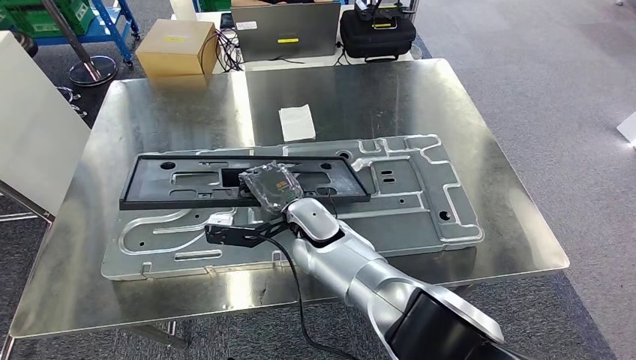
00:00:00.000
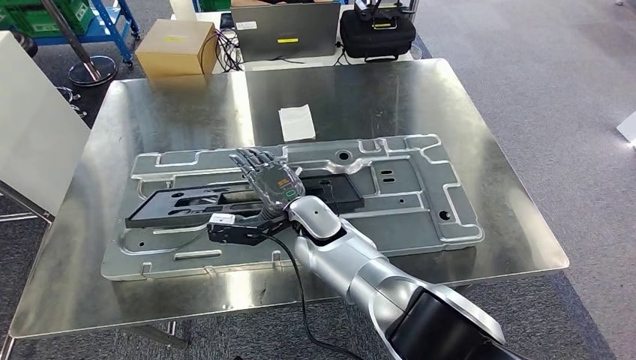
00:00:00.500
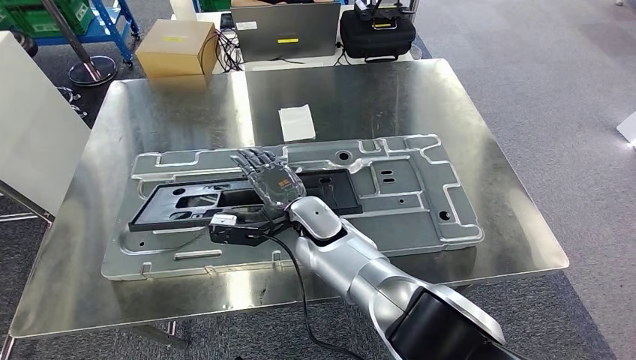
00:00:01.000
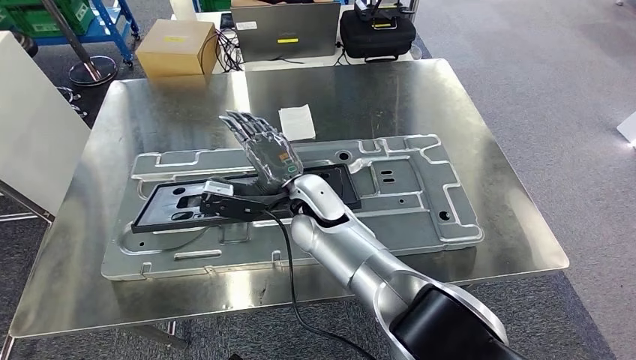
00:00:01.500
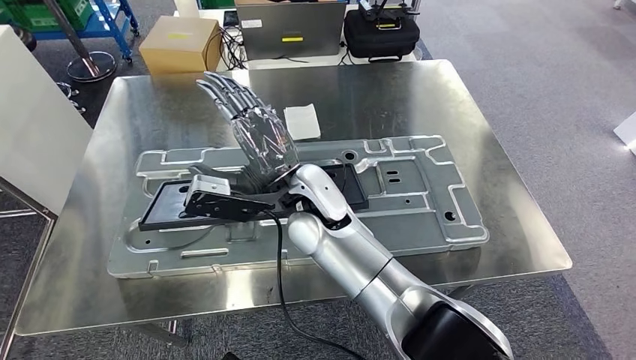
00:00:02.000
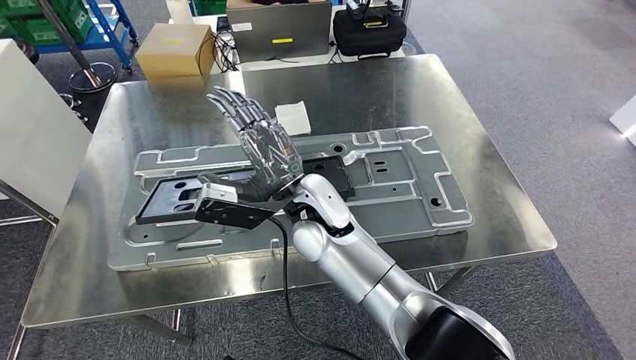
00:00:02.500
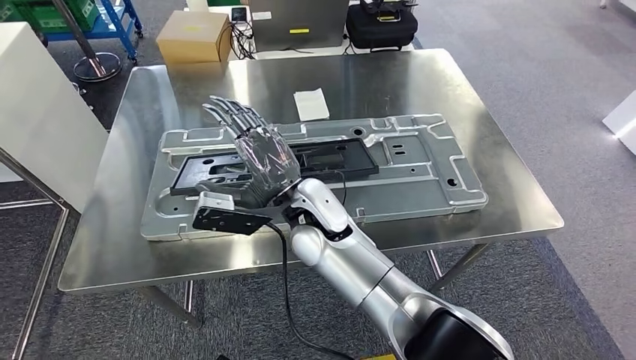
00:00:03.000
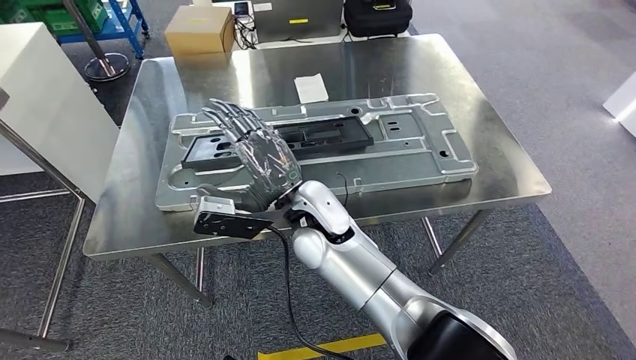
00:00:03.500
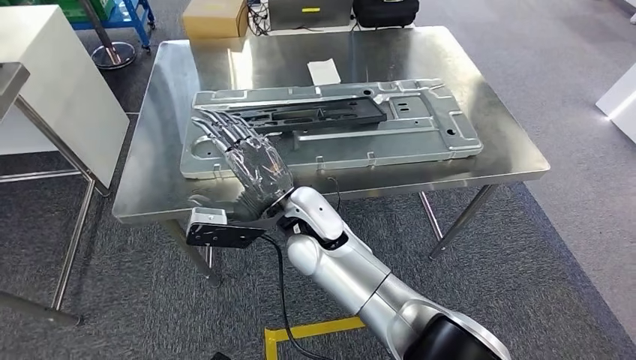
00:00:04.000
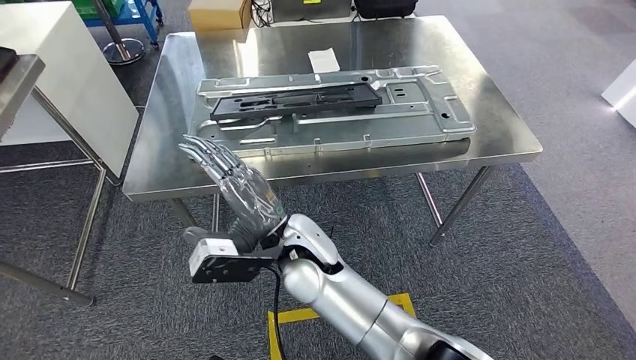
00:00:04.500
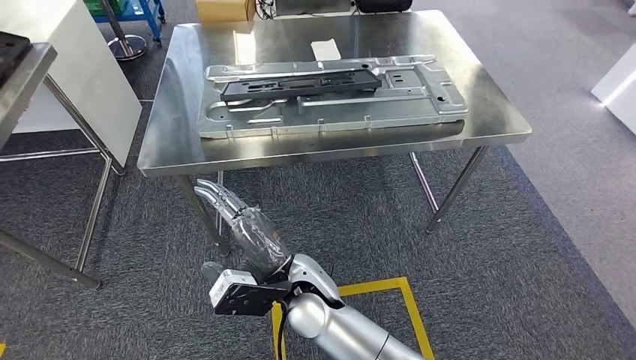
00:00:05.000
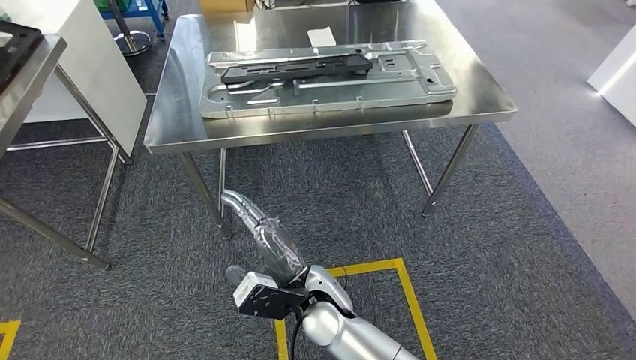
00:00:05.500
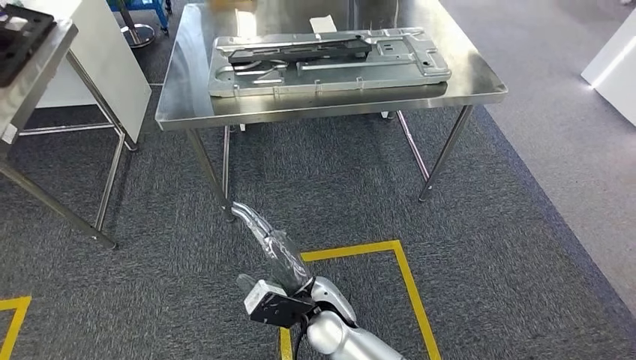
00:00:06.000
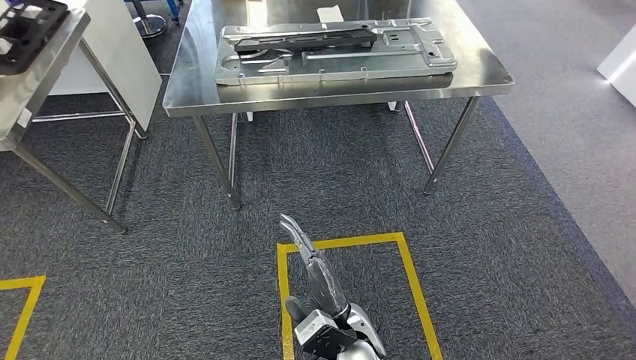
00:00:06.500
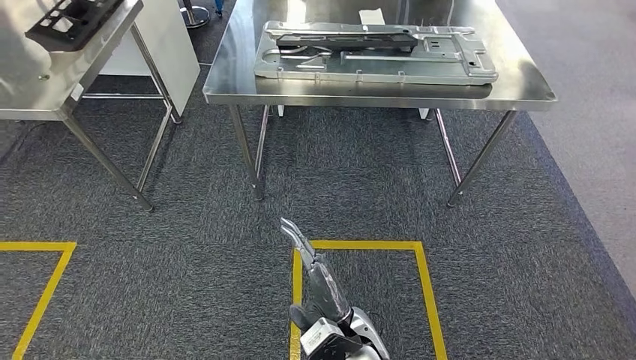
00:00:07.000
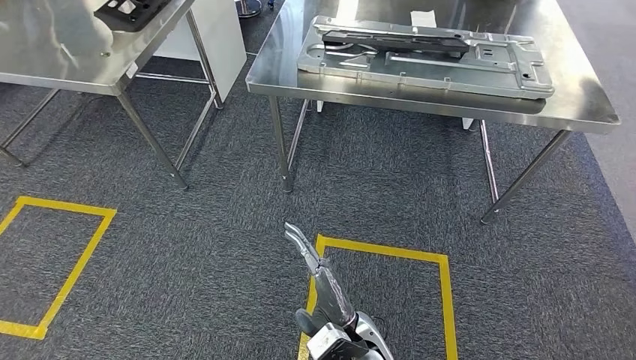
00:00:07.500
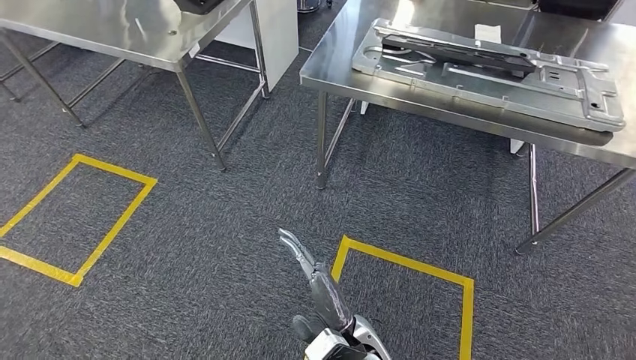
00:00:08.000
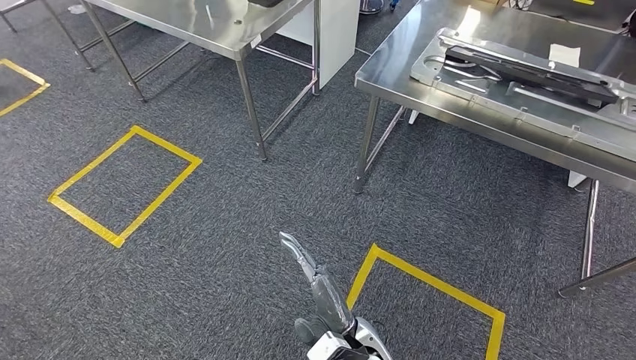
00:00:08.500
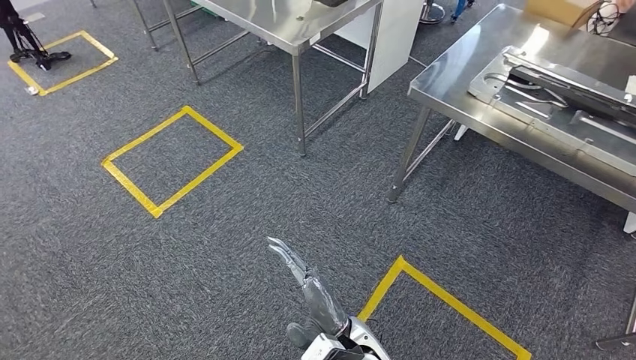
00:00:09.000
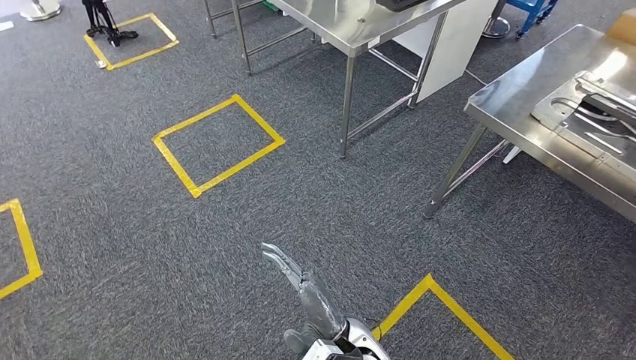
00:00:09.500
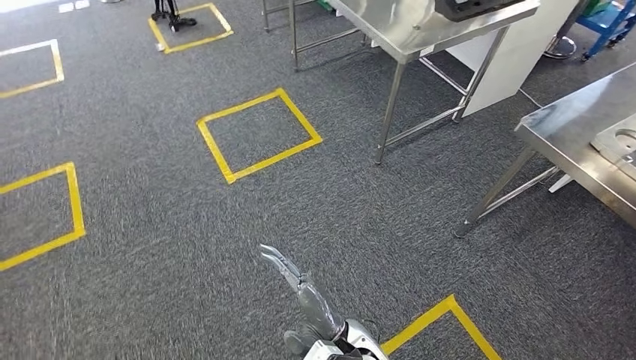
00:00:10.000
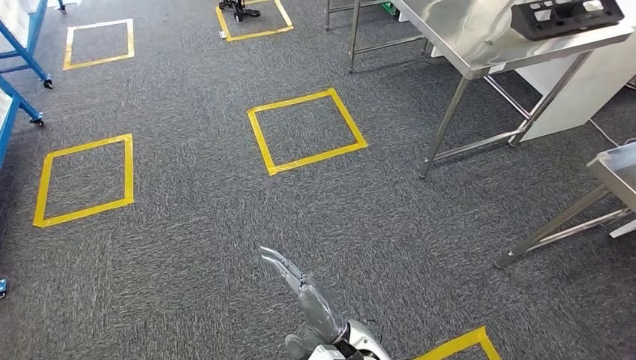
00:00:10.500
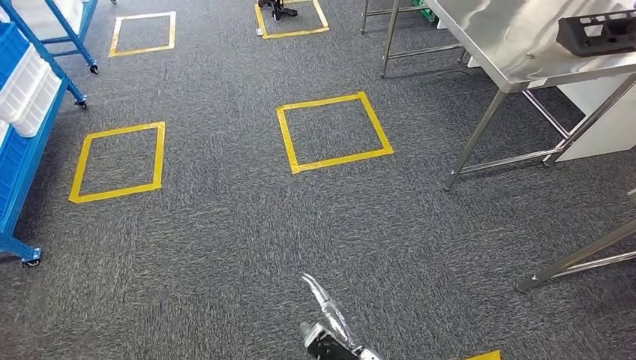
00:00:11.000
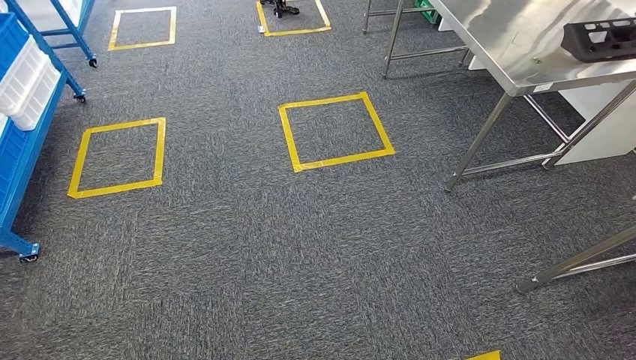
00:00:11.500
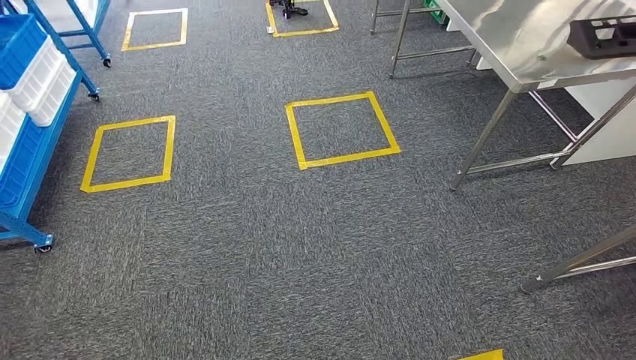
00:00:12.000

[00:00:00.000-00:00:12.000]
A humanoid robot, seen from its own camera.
Step, 00:00:00.000 to 00:00:06.500: Insert the large material into the corresponding slot on the workbench.

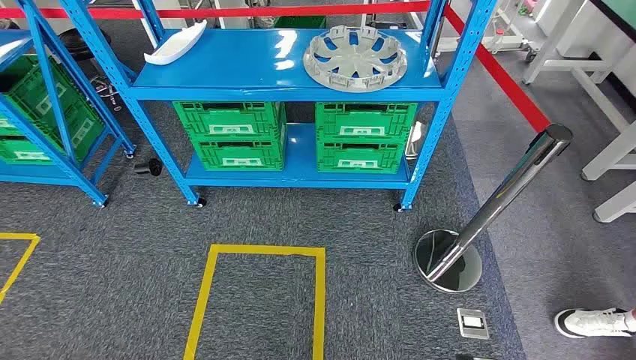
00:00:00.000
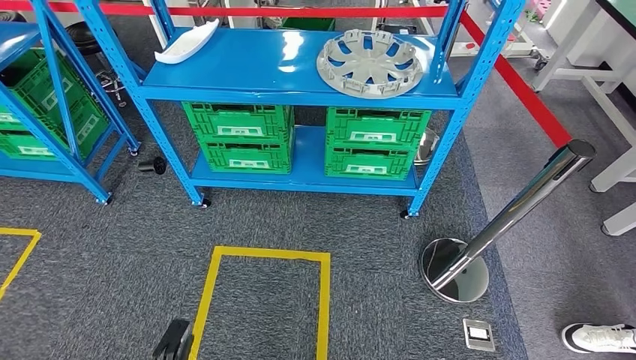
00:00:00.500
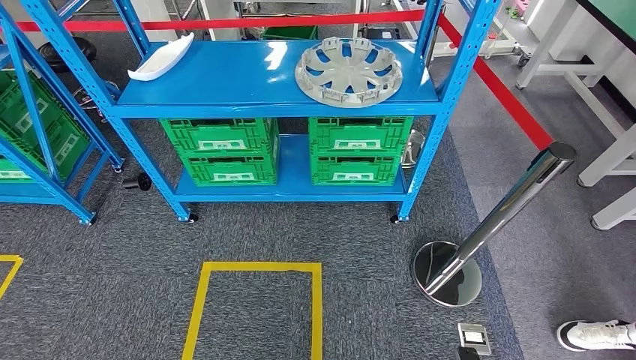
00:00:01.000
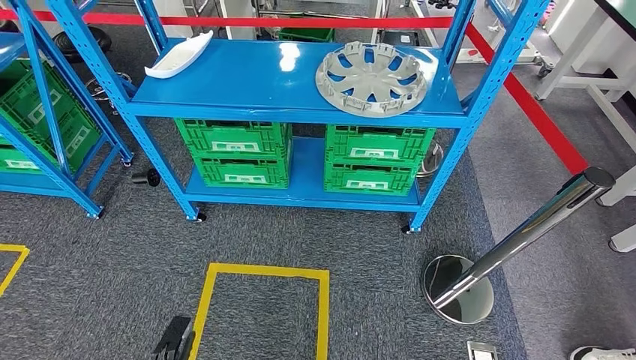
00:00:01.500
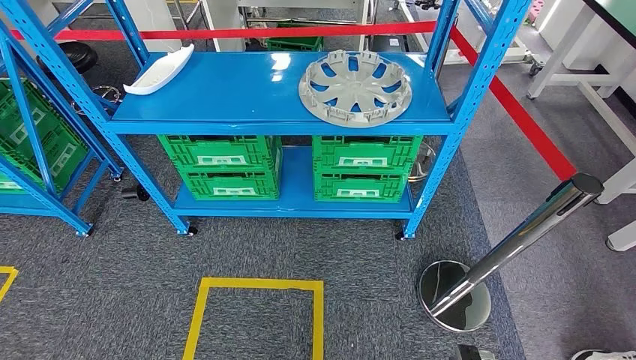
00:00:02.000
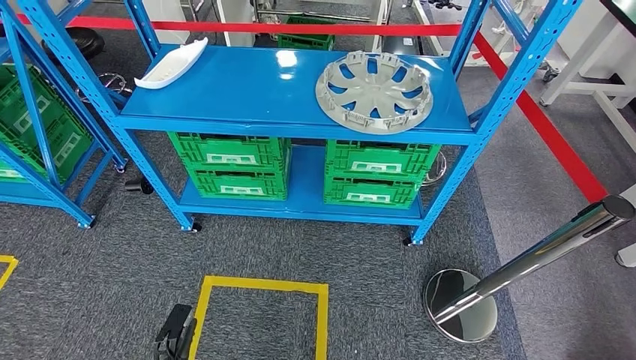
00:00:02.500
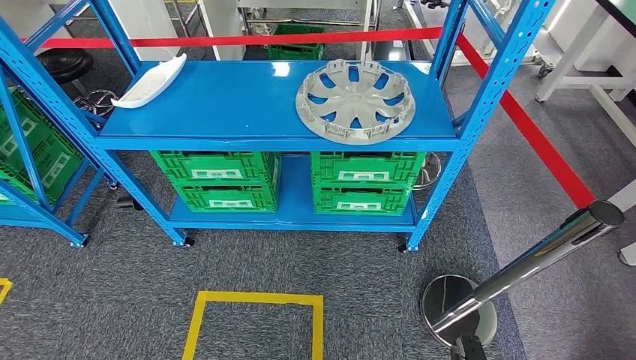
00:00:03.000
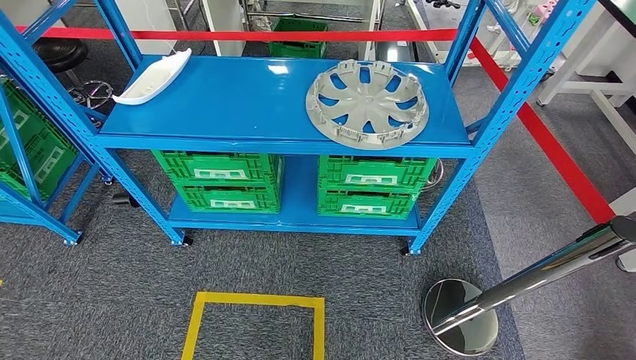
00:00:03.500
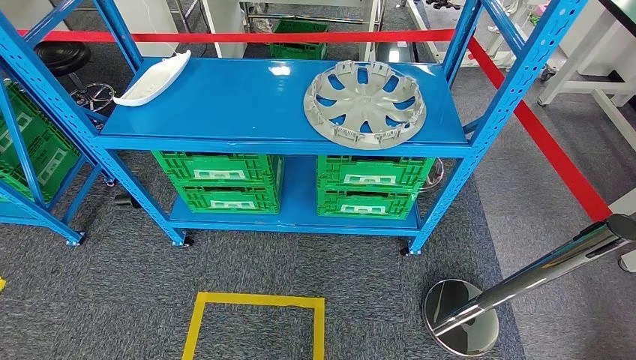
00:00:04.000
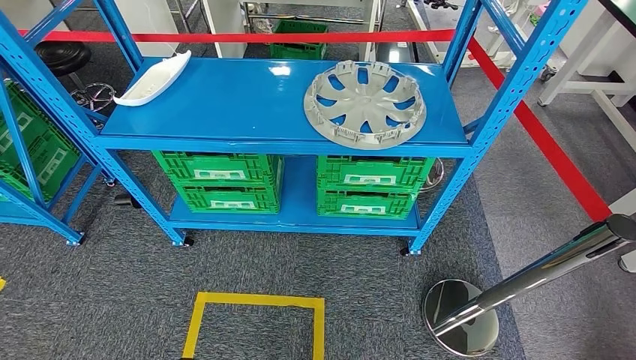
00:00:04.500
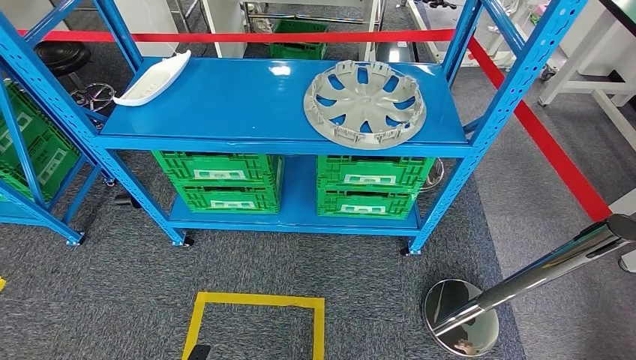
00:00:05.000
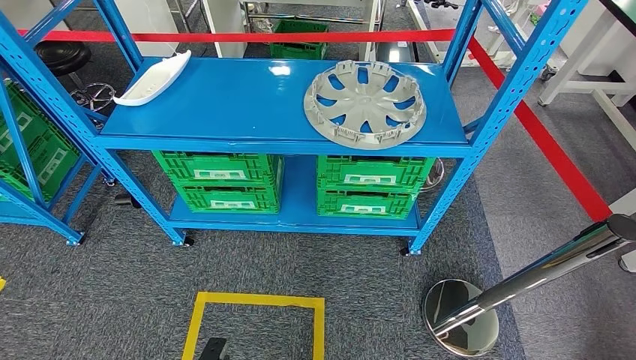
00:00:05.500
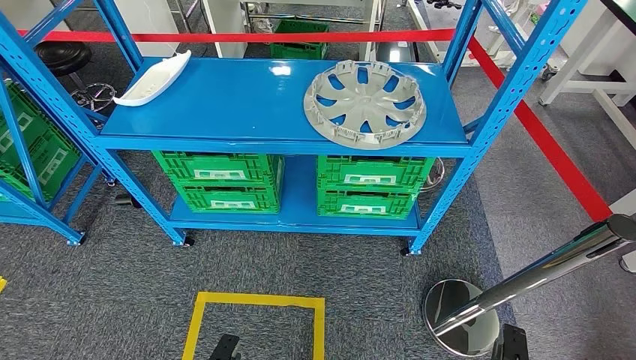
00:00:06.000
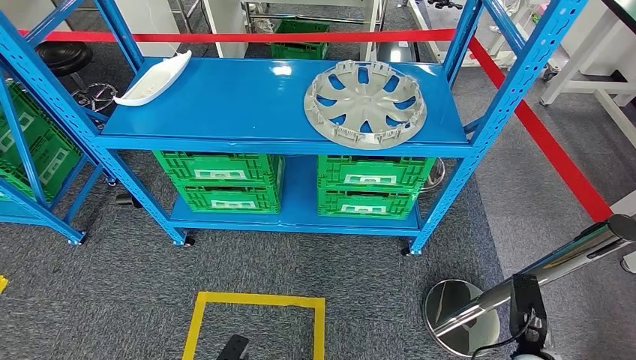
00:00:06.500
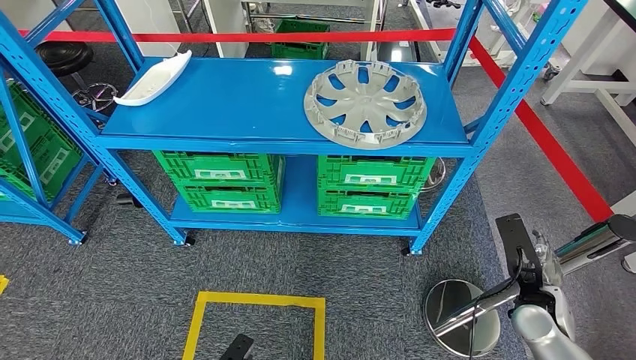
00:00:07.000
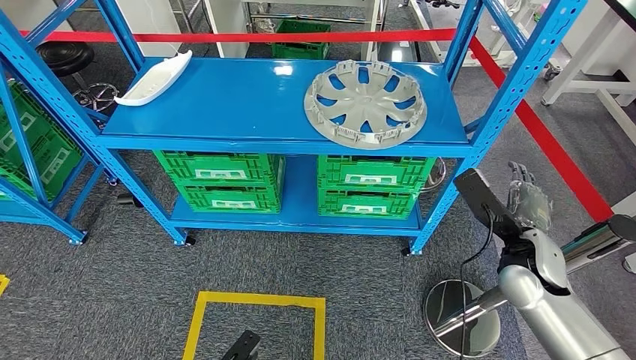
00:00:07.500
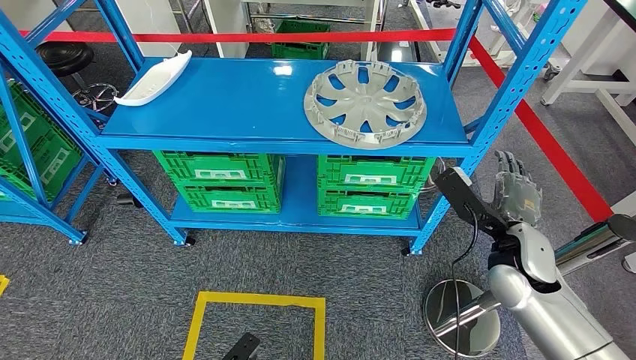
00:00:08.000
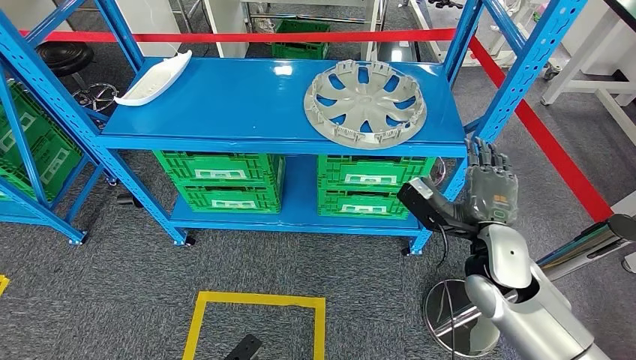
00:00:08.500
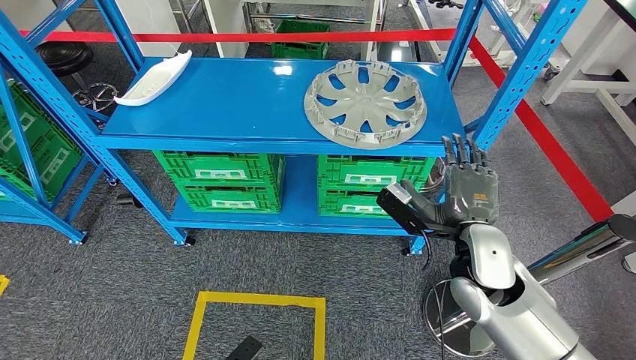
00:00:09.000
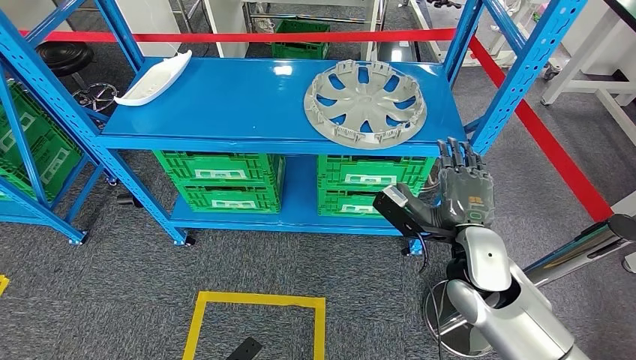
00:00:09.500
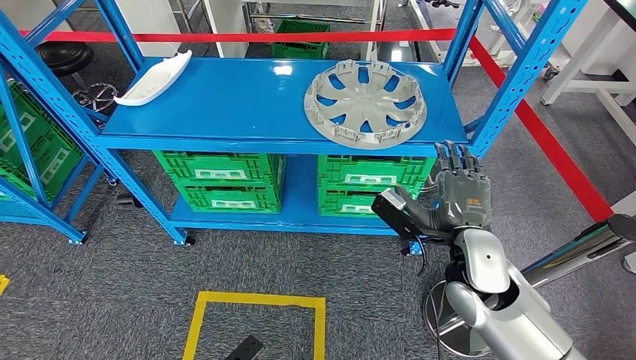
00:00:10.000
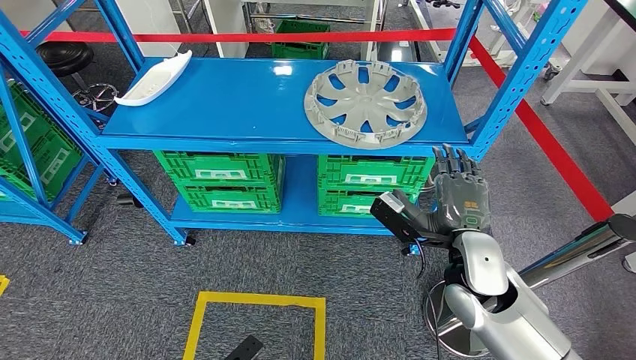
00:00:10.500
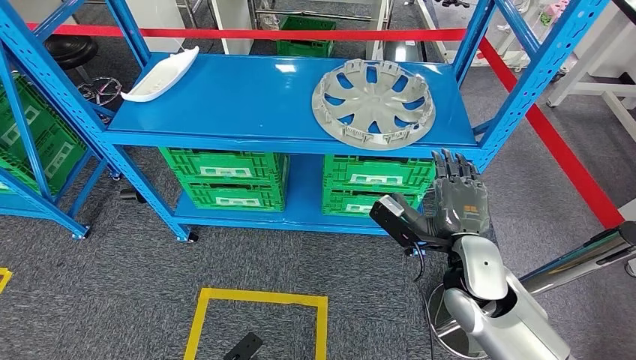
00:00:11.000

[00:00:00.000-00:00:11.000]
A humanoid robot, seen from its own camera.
00:00:03.500 to 00:00:05.500: The left hand shifts some 10 cm forward and to the right. Meanwhile the right hand travels forward by some 10 cm.
00:00:05.500 to 00:00:07.500: The right hand heads forward and upward, covering about 35 cm.
00:00:07.500 to 00:00:09.000: The right hand goes roughly 10 cm to the left.
